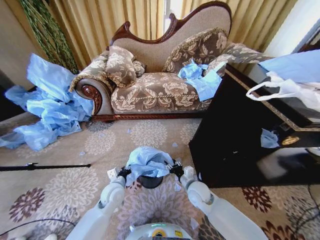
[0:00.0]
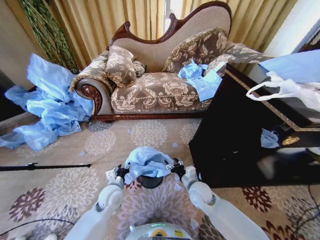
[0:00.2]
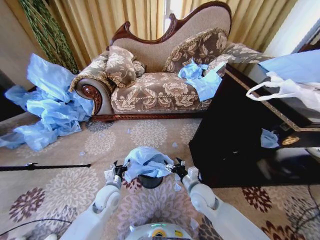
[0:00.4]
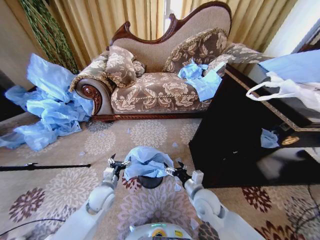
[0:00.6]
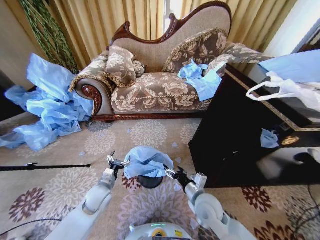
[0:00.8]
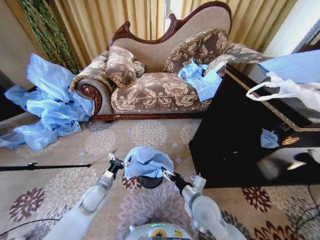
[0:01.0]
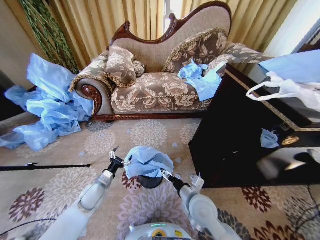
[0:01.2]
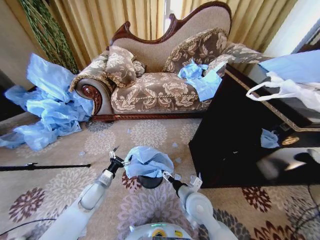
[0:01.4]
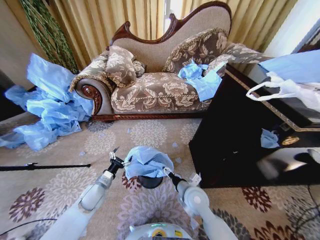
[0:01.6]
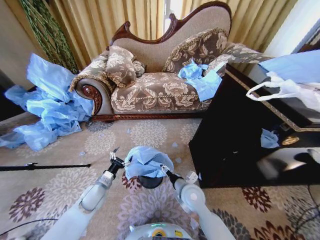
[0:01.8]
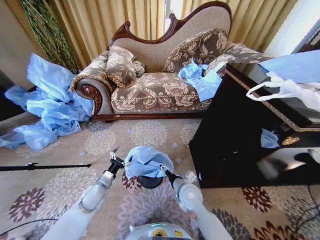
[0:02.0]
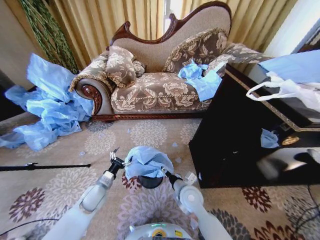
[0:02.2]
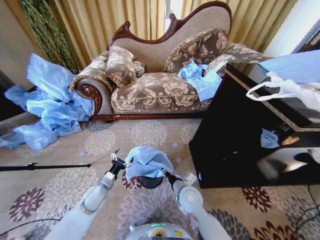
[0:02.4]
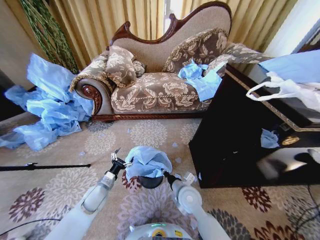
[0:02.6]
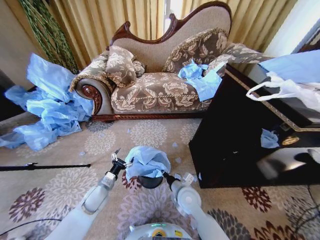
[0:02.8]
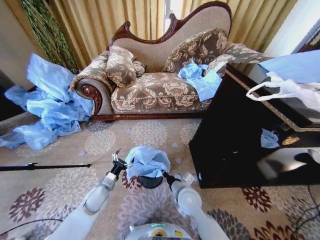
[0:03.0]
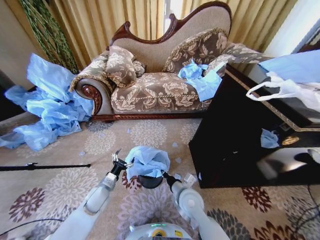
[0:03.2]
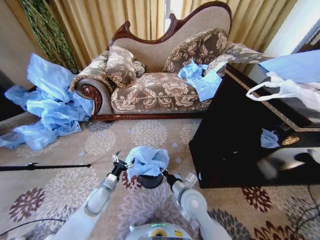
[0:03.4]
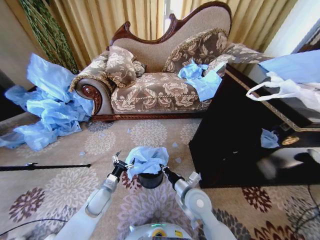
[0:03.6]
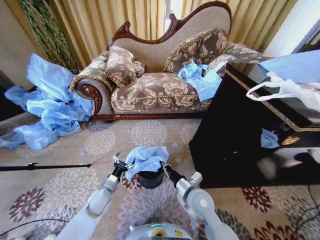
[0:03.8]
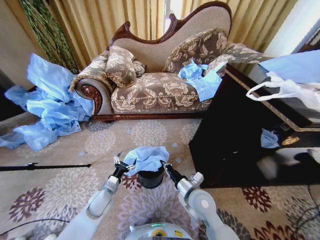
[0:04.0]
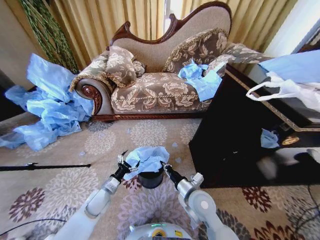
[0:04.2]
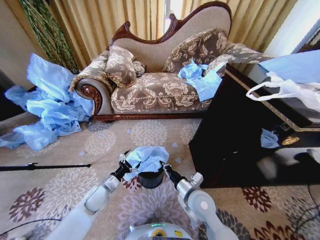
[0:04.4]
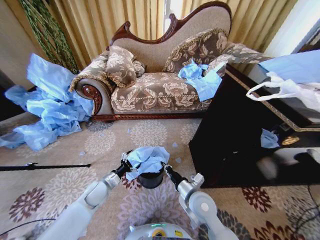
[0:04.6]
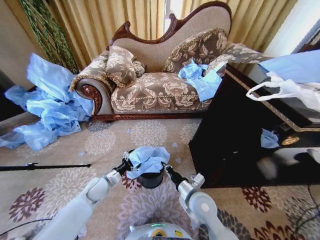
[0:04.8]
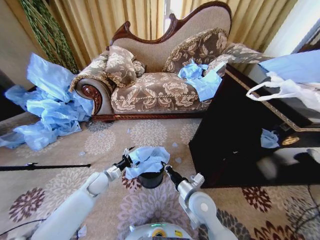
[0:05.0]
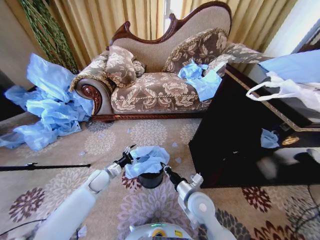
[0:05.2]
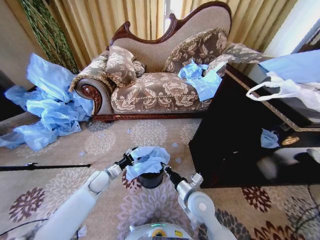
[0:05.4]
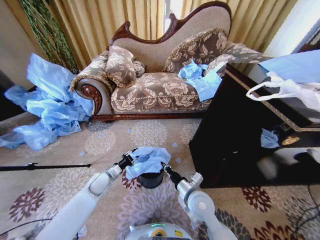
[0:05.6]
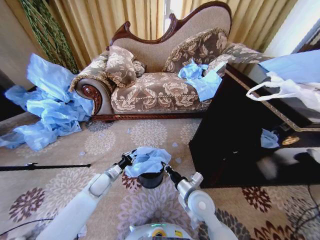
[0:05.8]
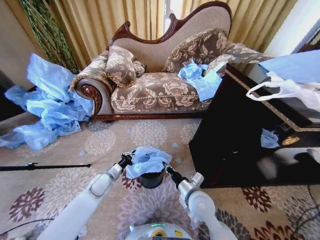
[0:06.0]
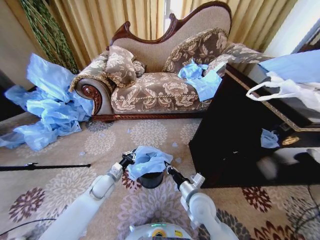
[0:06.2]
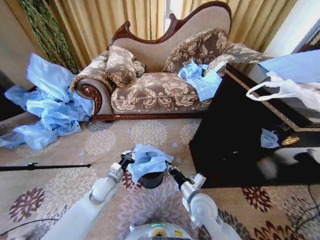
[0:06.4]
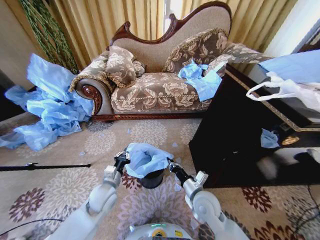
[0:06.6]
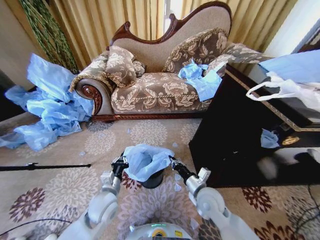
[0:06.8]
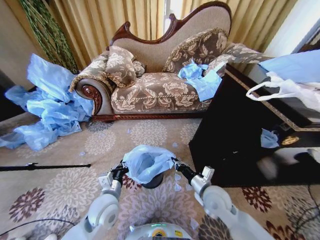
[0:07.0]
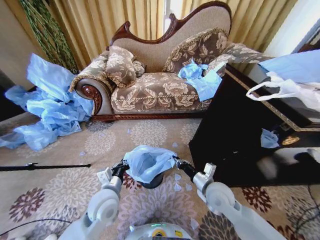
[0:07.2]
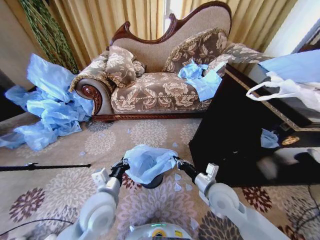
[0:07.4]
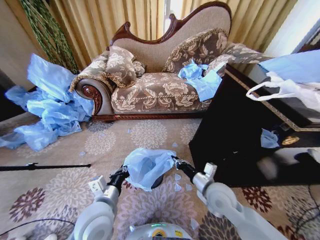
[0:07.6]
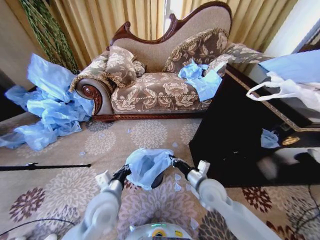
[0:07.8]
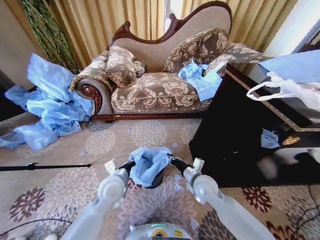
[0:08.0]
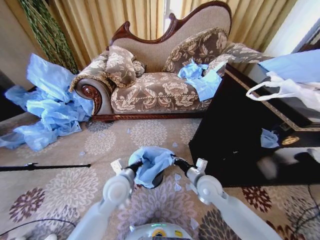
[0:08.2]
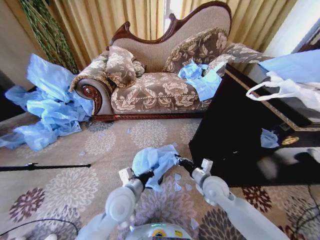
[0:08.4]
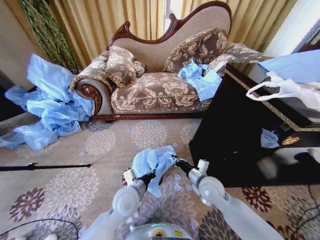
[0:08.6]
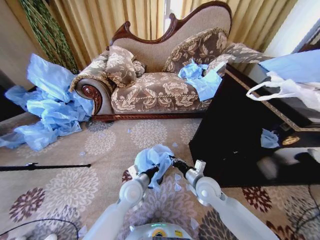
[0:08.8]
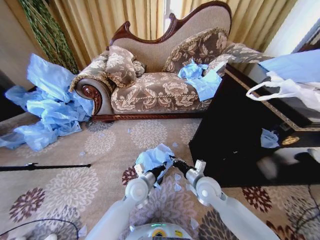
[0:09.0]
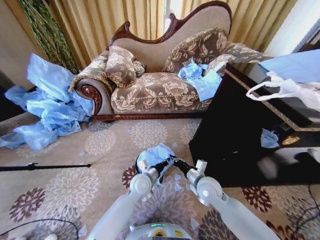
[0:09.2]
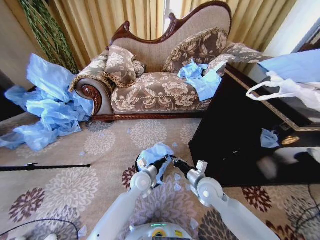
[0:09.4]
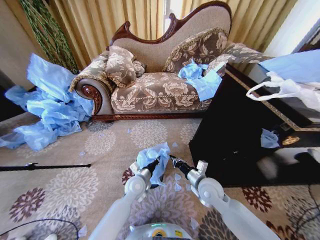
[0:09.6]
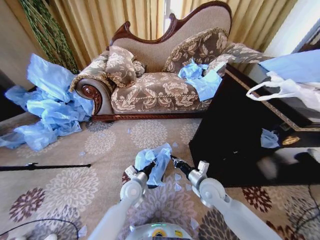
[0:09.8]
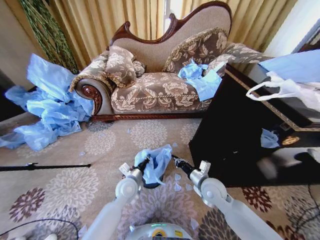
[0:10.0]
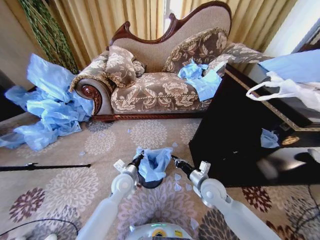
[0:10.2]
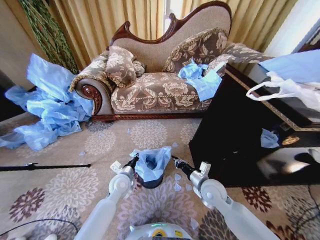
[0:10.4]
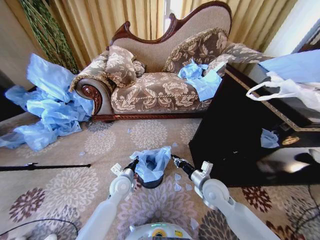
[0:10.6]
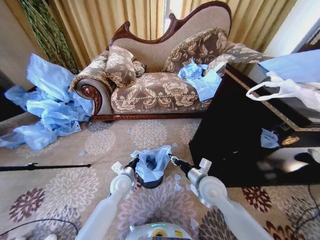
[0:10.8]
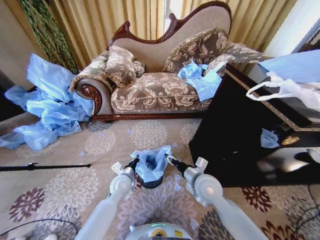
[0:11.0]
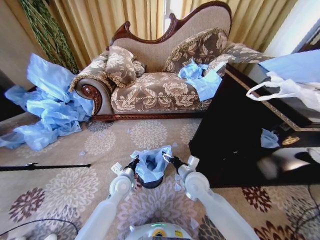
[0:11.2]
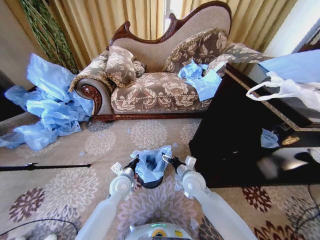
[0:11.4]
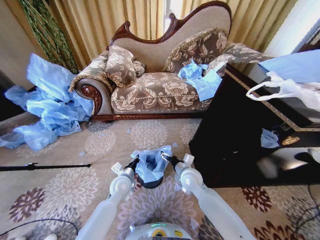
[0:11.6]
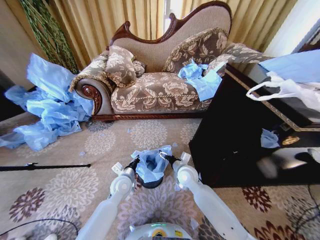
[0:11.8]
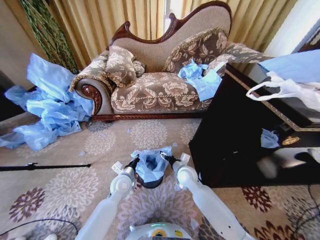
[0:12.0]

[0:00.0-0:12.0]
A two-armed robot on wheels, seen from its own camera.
Task of the whole recording: Place a garbage bag over the trash bin.
0:00.0 to 0:01.6: The left gripper heads to the left, covering roughly 10 cm, and opens. The right gripper shifts by some 5 cm, and opens up.
0:01.6 to 0:03.0: The right gripper closes up.
0:03.0 to 0:04.4: The right gripper shifts by about 5 cm.
0:04.4 to 0:06.0: The left gripper heads forward, covering about 5 cm, and closes up.
0:06.0 to 0:07.6: The left gripper goes some 25 cm backward, upward and to the right; the right gripper shifts about 5 cm to the right.
0:07.6 to 0:09.0: The right gripper shifts by approximately 5 cm; the left gripper swings forward and backward, some 10 cm each way, with 2 reversals.
0:09.0 to 0:10.4: The left gripper moves to the left, roughly 10 cm.
0:10.4 to 0:12.0: The right gripper travels to the left and forward by roughly 10 cm, and opens up.

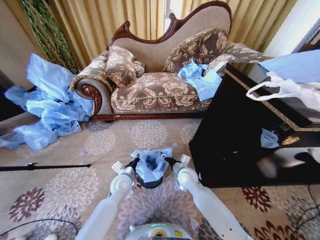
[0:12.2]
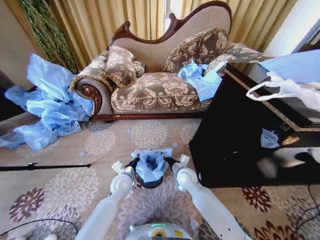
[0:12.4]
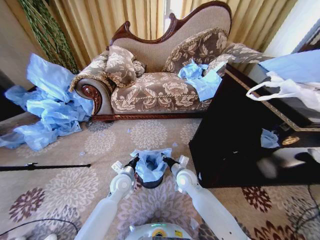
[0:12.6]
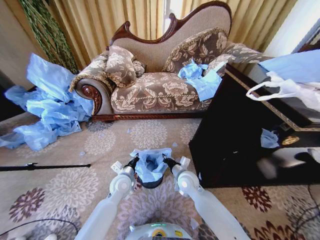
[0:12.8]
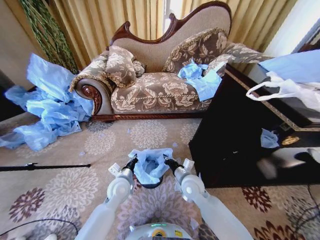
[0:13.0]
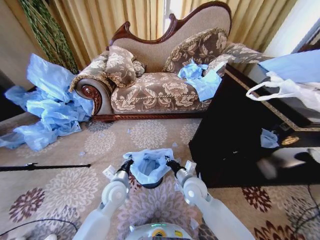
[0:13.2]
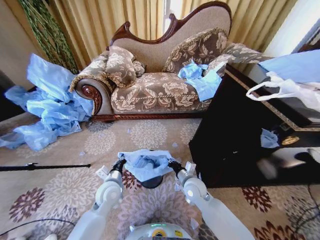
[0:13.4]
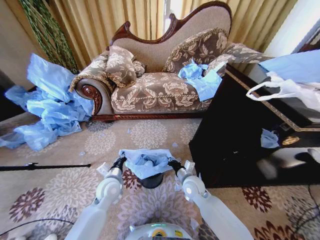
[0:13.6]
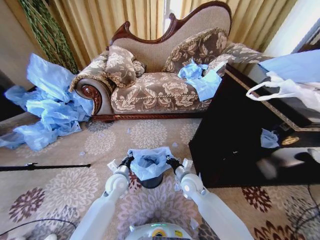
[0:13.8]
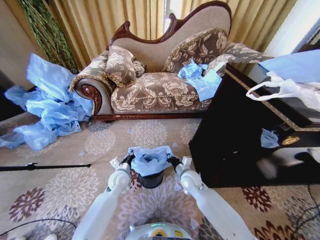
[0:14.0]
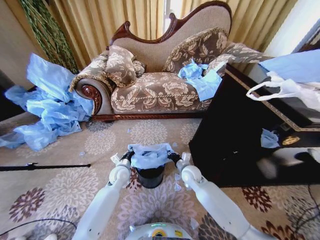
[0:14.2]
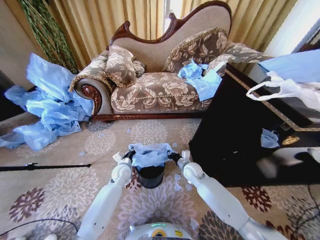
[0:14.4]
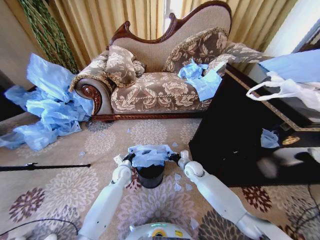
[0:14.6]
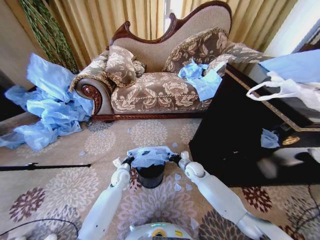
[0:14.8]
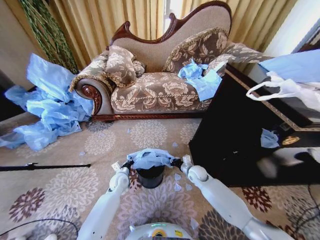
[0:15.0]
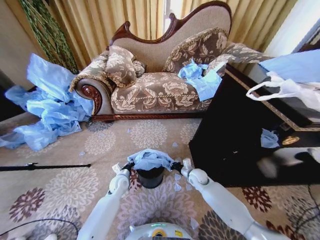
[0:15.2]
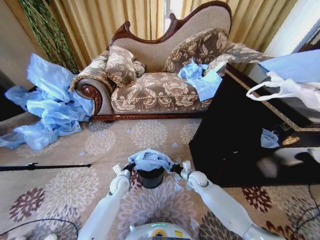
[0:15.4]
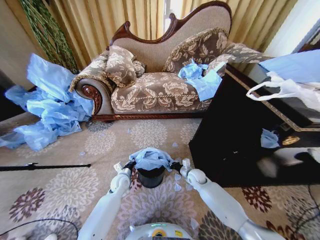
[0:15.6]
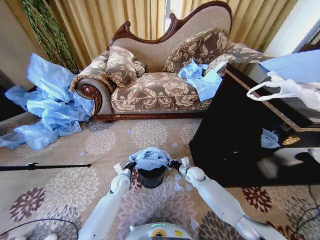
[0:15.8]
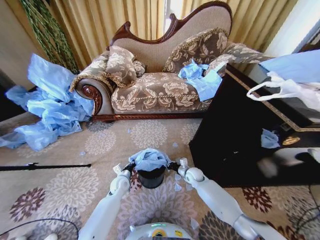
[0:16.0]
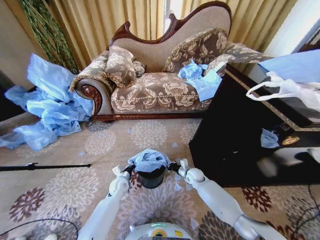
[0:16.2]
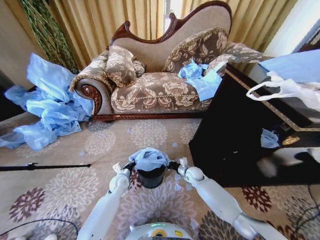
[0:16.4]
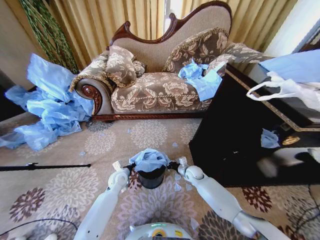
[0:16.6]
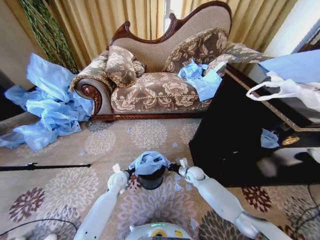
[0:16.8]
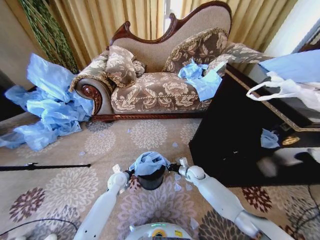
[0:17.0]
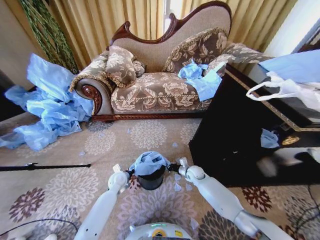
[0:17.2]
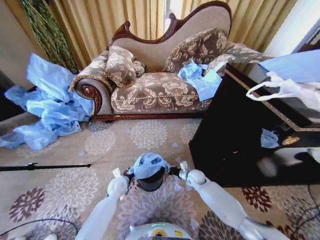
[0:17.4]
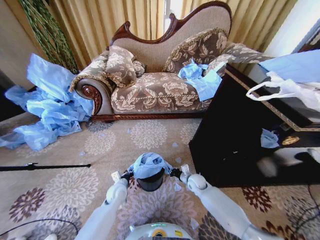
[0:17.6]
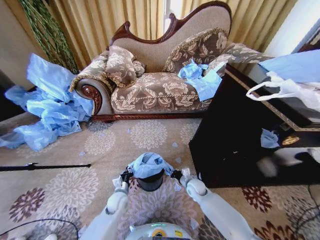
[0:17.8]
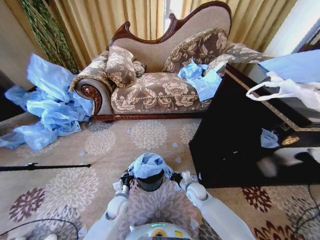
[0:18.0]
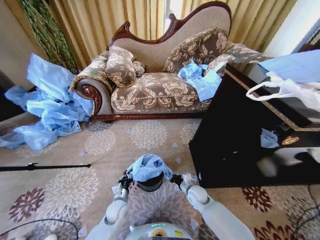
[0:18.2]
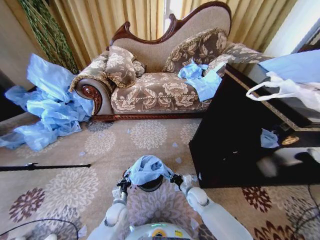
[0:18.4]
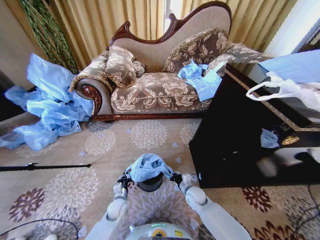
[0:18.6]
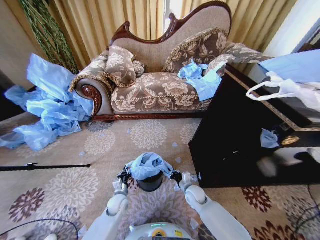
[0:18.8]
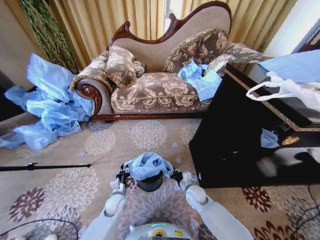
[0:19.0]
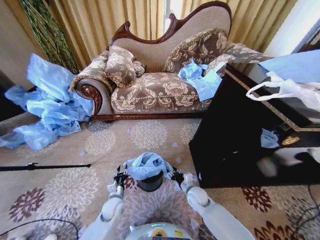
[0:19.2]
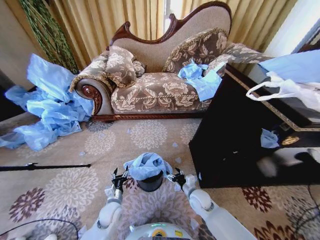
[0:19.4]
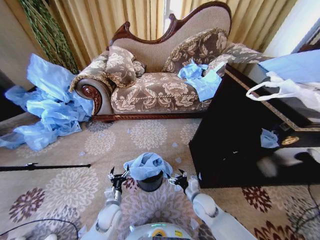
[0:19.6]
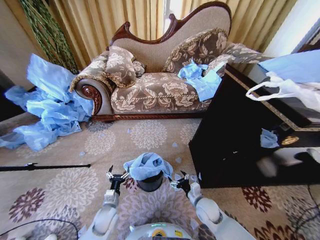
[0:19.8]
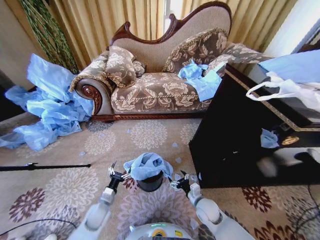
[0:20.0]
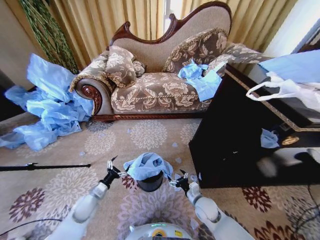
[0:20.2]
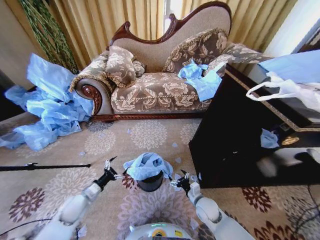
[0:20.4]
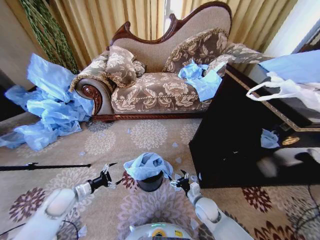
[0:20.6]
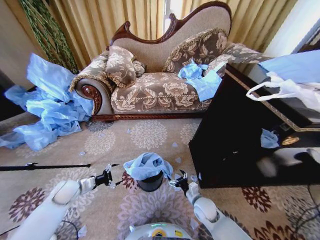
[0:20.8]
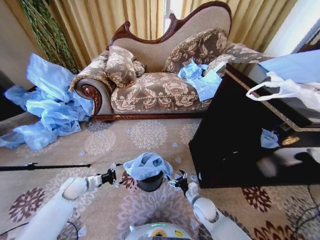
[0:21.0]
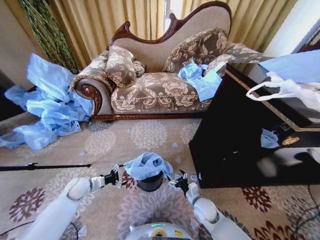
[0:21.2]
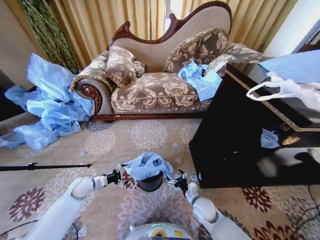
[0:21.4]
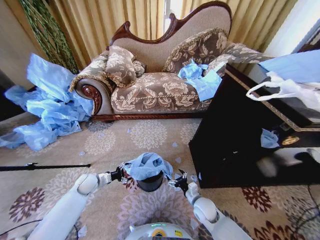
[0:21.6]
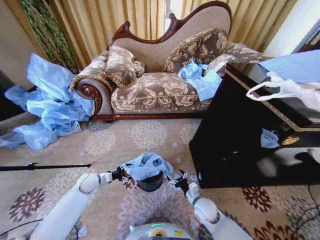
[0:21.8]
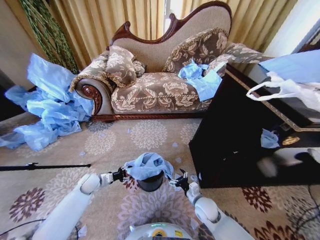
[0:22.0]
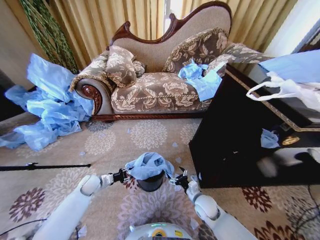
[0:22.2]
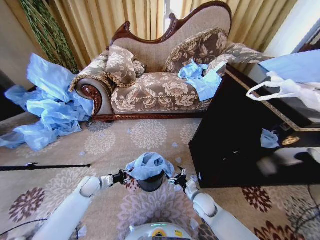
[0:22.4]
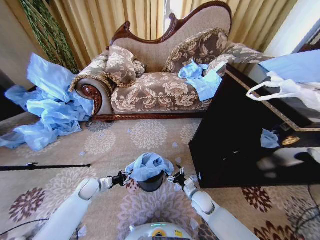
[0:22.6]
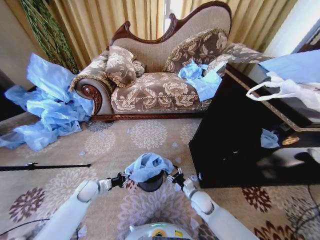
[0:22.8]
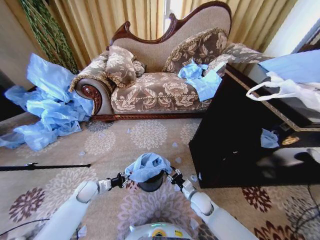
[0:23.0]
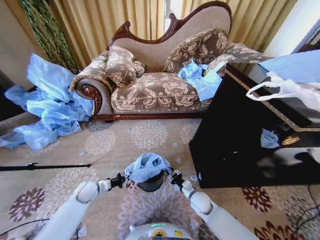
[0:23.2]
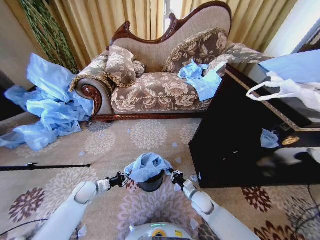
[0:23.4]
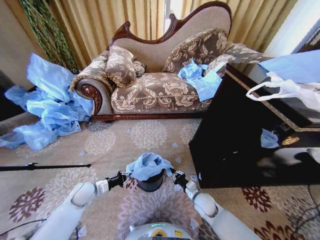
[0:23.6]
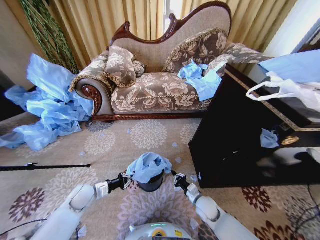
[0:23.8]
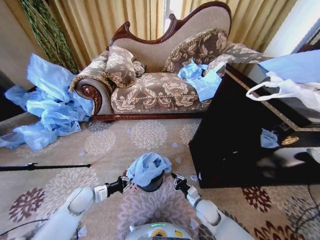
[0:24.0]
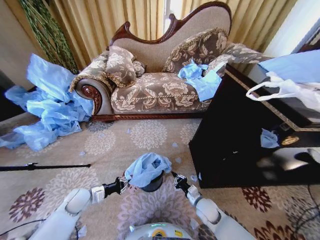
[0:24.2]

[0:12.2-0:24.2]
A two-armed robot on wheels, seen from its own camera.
Task of the whole recording: Place a garbage bag over the trash bin.
0:12.2 to 0:13.8: The right gripper closes up.
0:13.8 to 0:15.2: The right gripper heads downward, forward and to the right, covering about 15 cm, while the left gripper travels downward by roughly 5 cm.
0:15.2 to 0:16.6: The grippers move only a little.
0:16.6 to 0:18.2: The right gripper heads backward, covering approximately 10 cm. The left gripper moves backward and downward, about 15 cm.
0:18.2 to 0:19.8: The left gripper opens up. Meanwhile the right gripper moves backward, approximately 5 cm, and opens up.
0:19.8 to 0:21.2: The left gripper shifts some 20 cm to the left, forward and upward.
0:21.2 to 0:22.6: The left gripper closes up.
0:22.6 to 0:24.2: The right gripper closes its fingers; the left gripper goes about 5 cm backward.
